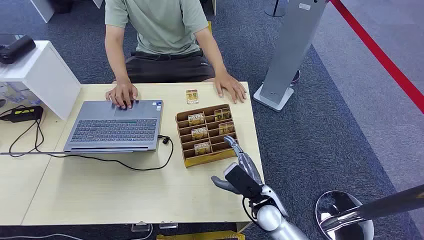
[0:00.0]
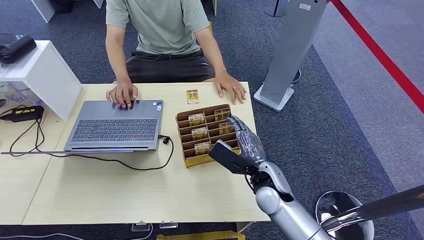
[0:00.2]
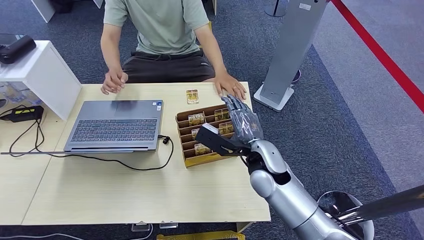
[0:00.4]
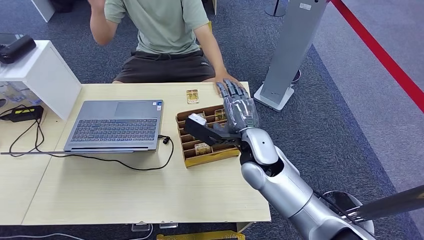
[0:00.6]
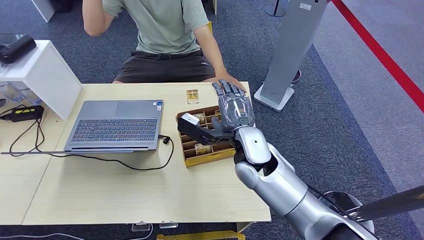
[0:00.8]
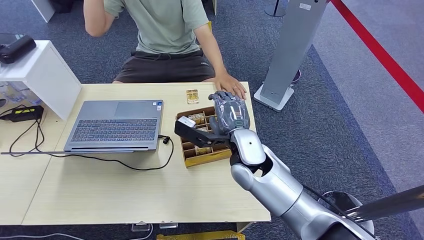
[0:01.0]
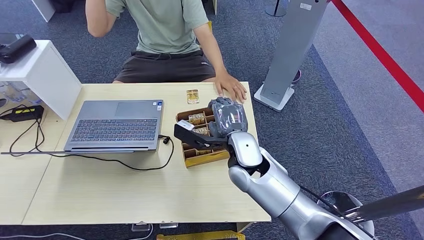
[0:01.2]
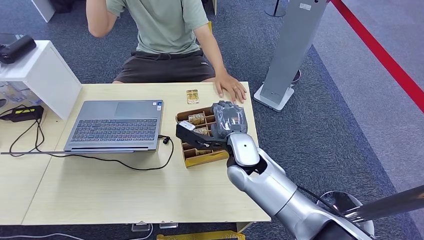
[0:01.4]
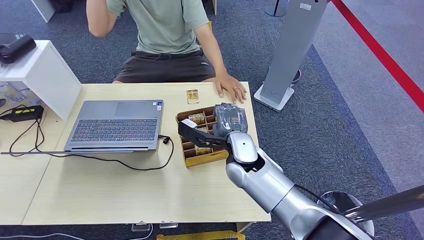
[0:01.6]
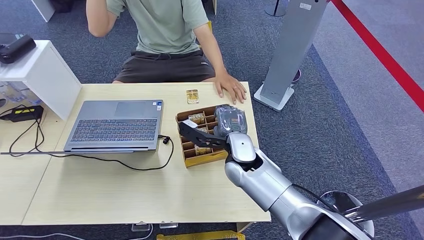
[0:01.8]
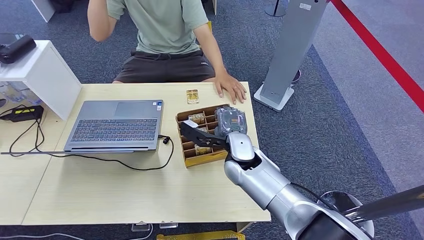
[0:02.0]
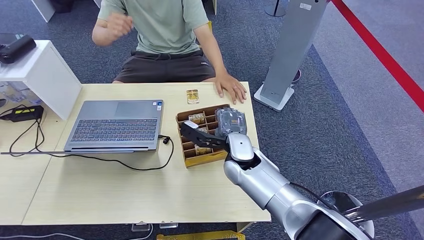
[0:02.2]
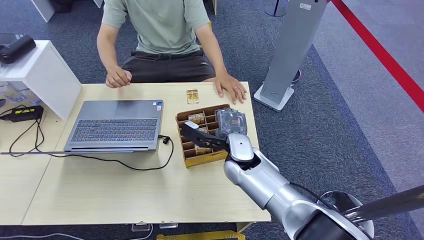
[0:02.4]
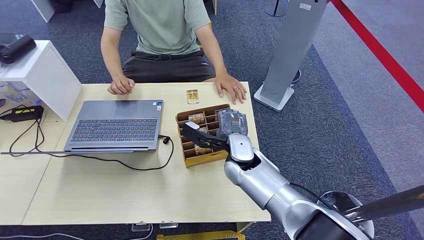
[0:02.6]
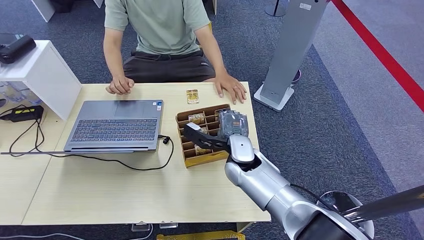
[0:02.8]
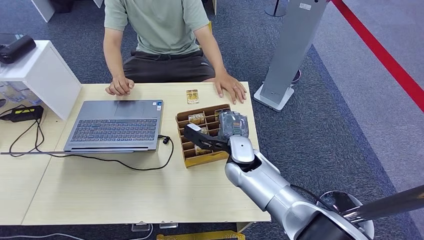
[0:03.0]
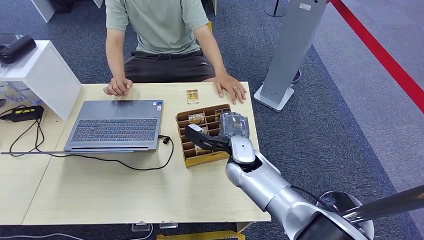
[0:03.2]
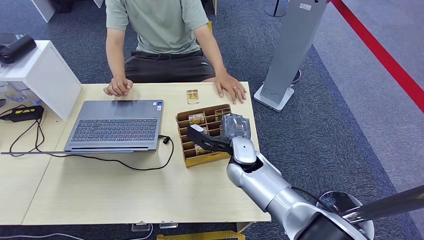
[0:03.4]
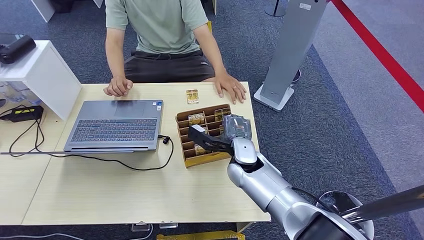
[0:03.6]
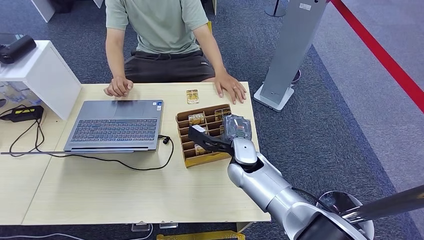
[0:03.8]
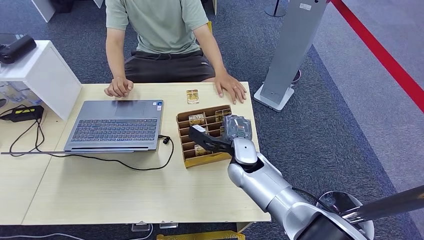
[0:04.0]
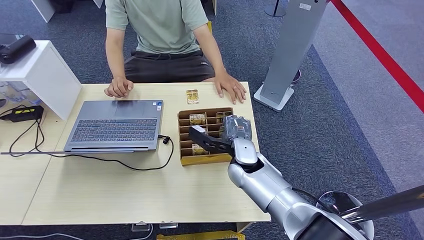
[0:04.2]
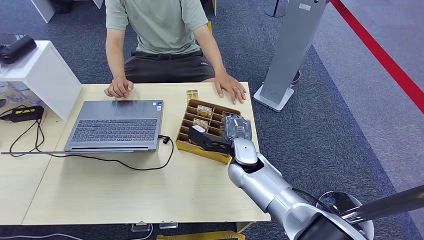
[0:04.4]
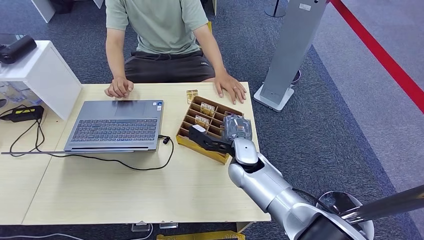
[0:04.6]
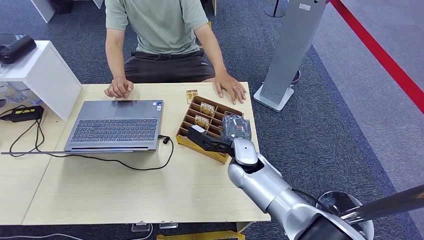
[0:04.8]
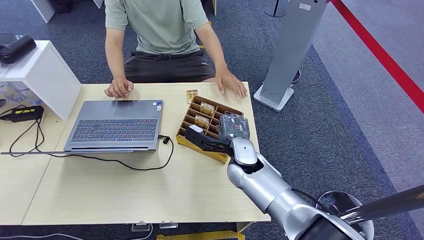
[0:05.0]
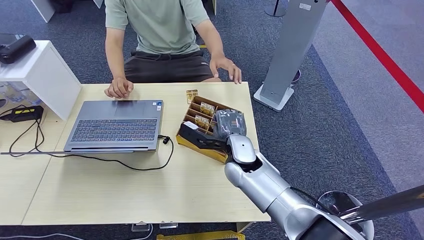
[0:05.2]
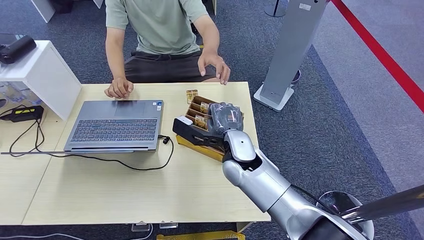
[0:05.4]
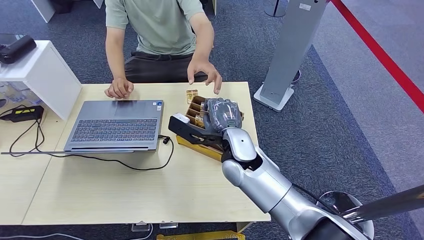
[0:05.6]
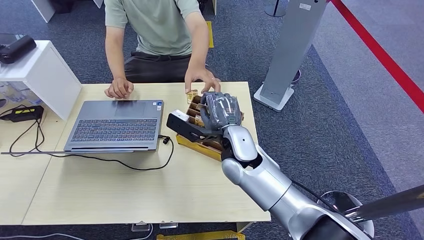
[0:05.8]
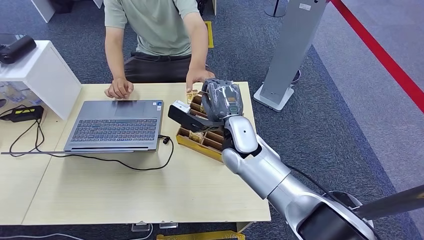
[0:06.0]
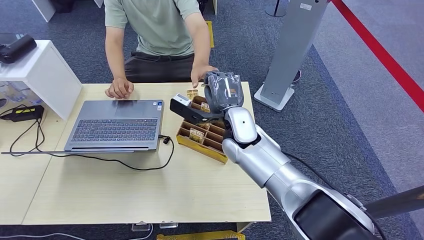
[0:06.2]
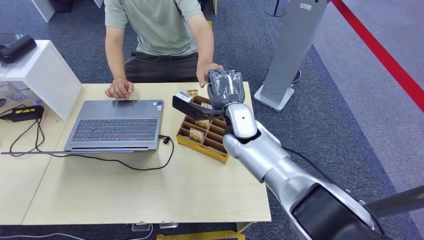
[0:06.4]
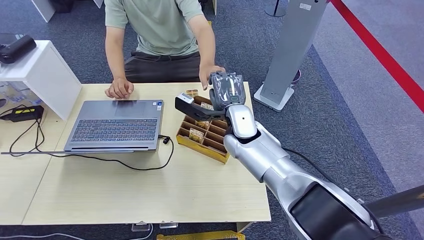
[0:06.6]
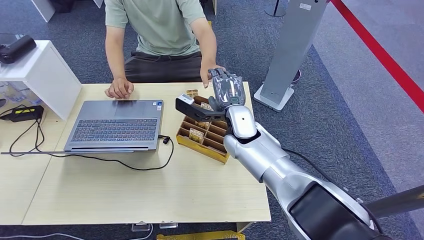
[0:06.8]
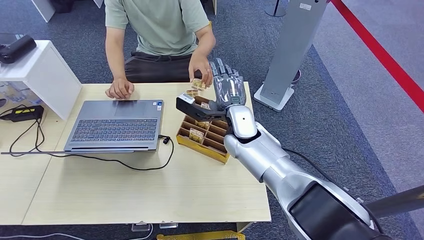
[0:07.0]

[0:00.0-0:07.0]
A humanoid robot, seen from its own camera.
Step, 0:00.0 to 0:05.6: Pick up the room card from the card holder.
Step, 0:05.8 to 0:07.0: Hand the room card to the target.
0:01.4 to 0:04.2: There are only small adjustments of the hands.
0:04.2 to 0:05.6: The right hand shifts roughly 5 cm upward.
0:05.6 to 0:07.0: The right hand shifts roughly 5 cm forward.
